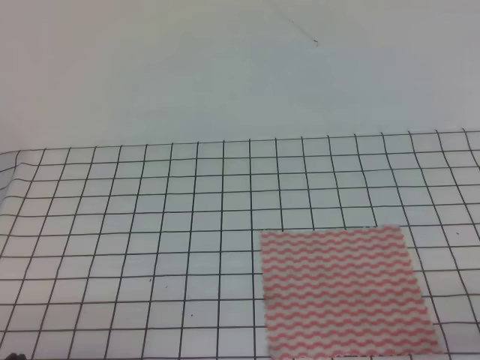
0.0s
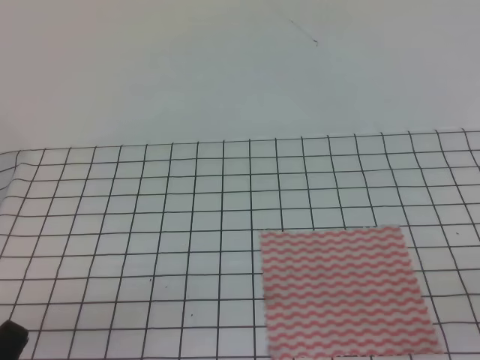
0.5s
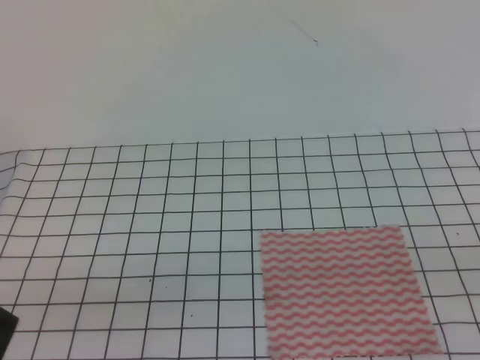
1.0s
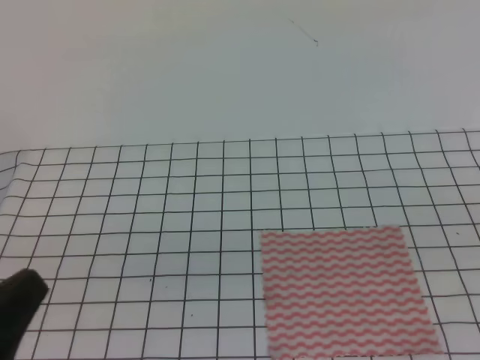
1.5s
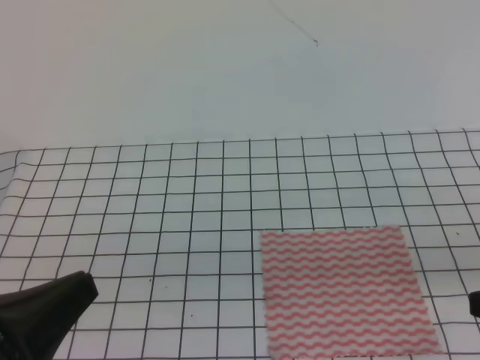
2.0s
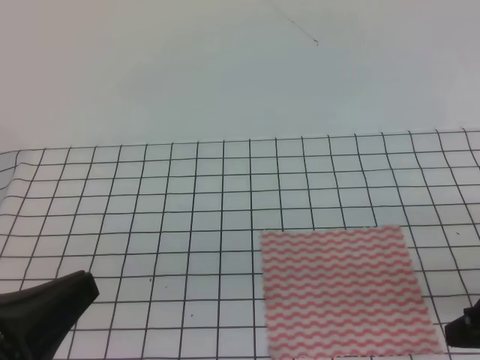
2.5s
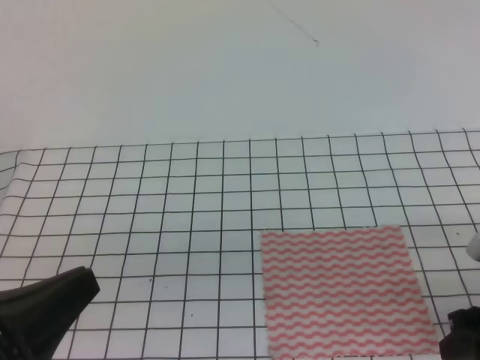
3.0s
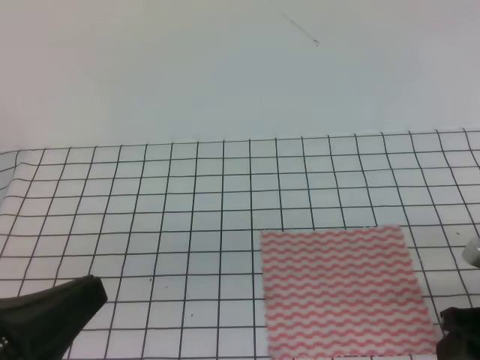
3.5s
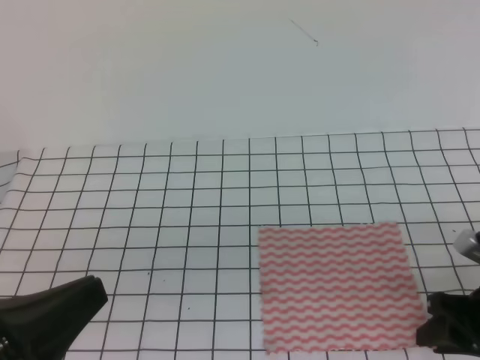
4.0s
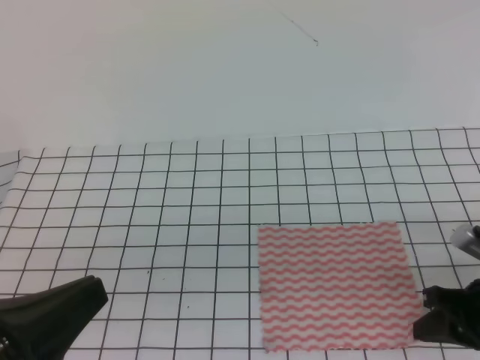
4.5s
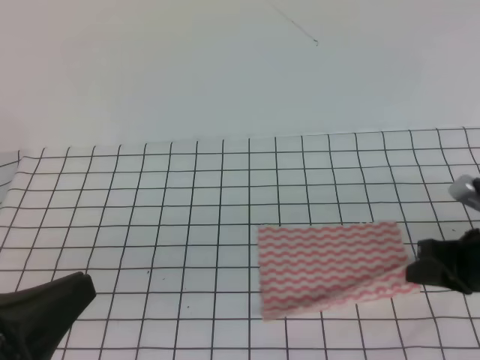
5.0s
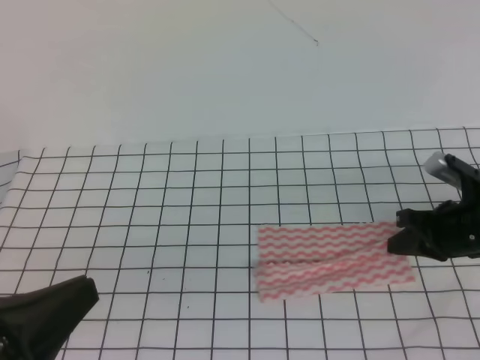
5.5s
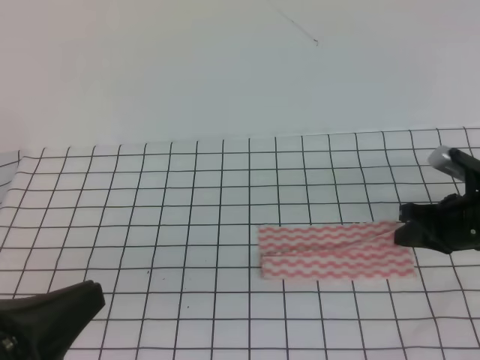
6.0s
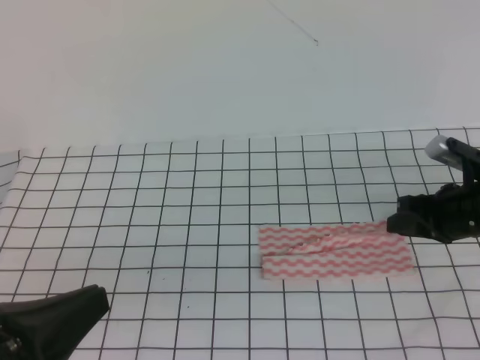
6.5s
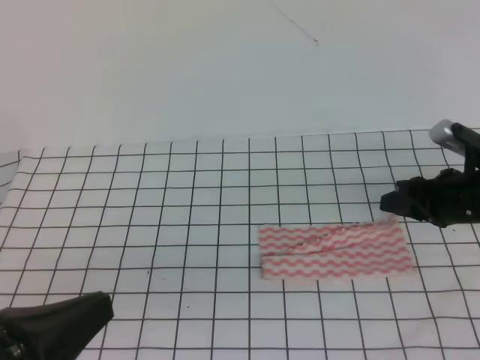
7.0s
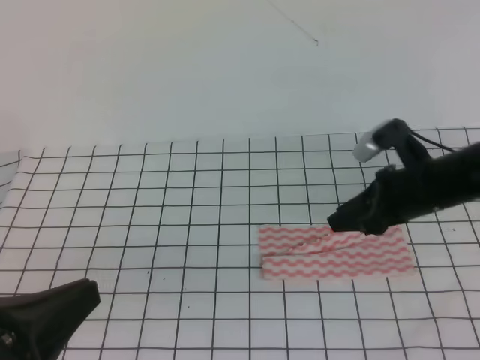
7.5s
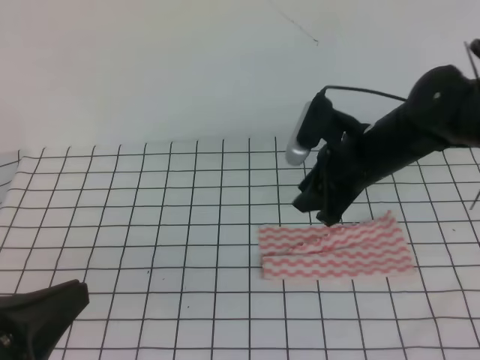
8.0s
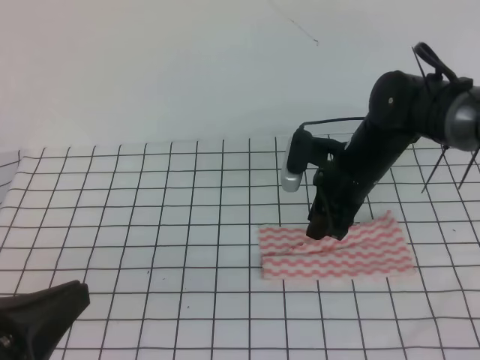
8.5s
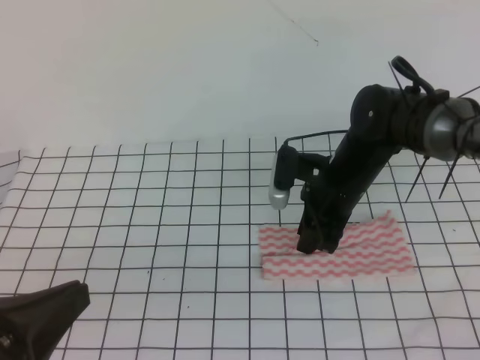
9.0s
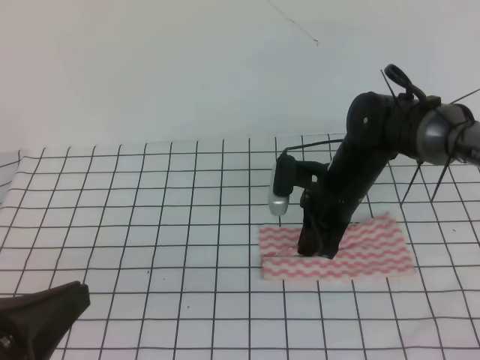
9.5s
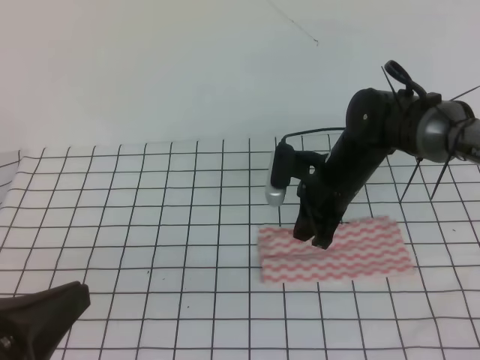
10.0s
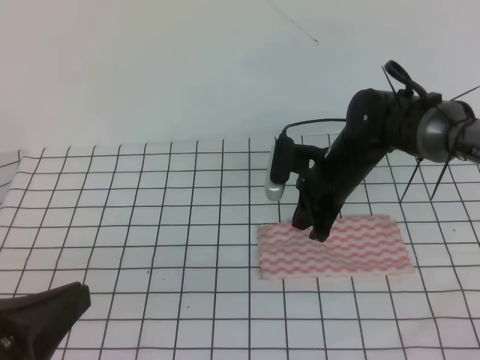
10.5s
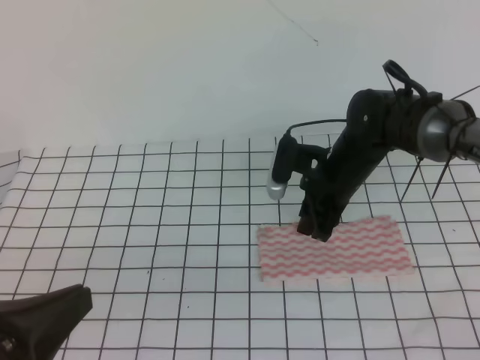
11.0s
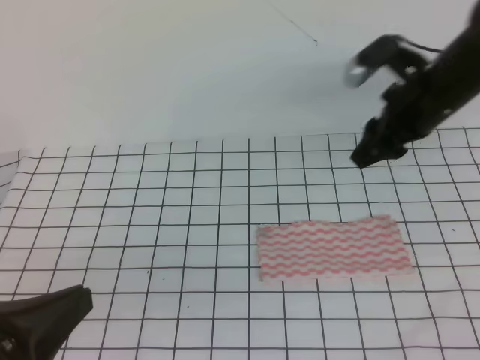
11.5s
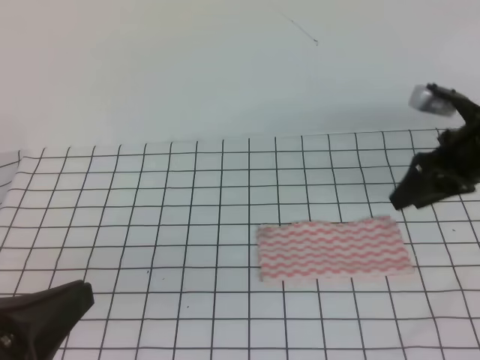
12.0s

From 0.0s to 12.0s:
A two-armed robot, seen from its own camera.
Step, from 0.0s to 6.5s: Fold the towel upwards with the right gripper.
Step, from 7.0s to 10.5s: Fold the towel from right to left with the right gripper.
From 0.0s to 2.0s: The right gripper is displaced forward and upward by roughly 10 cm, while the left gripper heads upward, covering about 10 cm.
From 2.0s to 4.0s: The right gripper is displaced downward and forward by about 15 cm, and opens up.
From 4.0s to 6.0s: The right gripper shifts roughly 10 cm forward, and closes up.
From 6.0s to 8.0s: The right gripper goes some 15 cm to the left and upward, and opens up.
From 8.0s to 10.0s: The right gripper is displaced downward by about 5 cm, and closes up.
From 10.0s to 12.0s: The right gripper shifts roughly 15 cm to the right and upward, and opens.

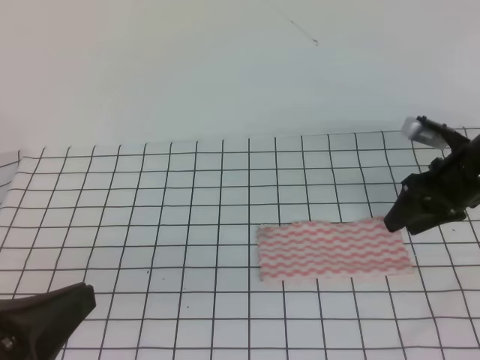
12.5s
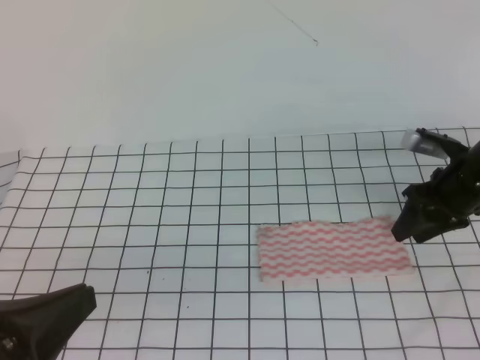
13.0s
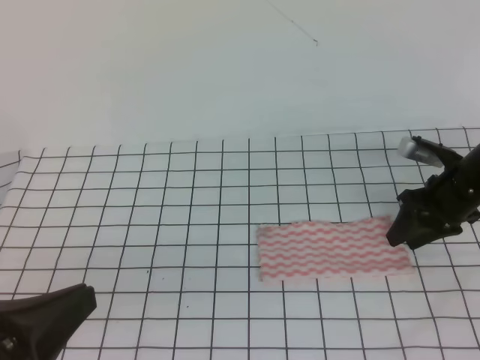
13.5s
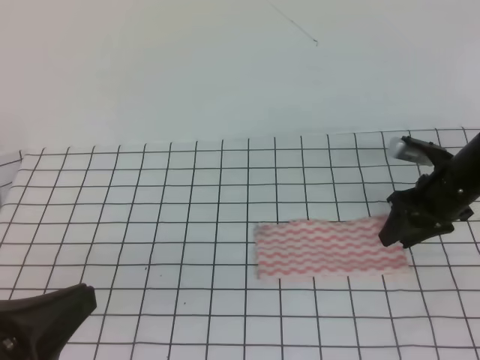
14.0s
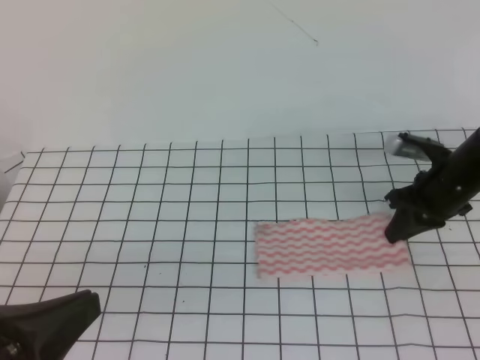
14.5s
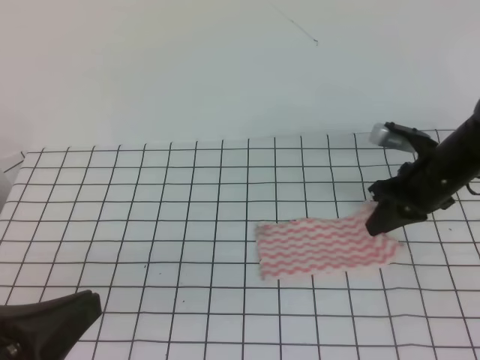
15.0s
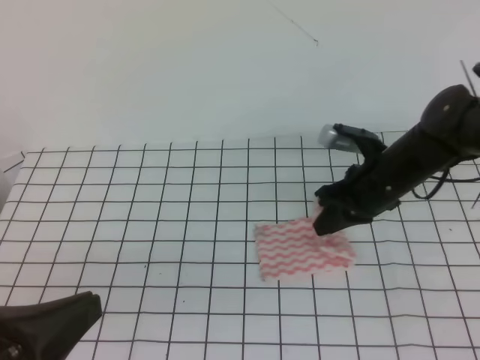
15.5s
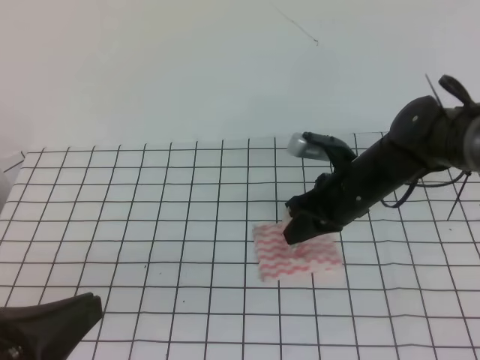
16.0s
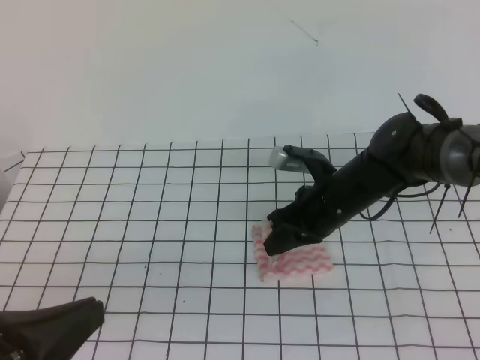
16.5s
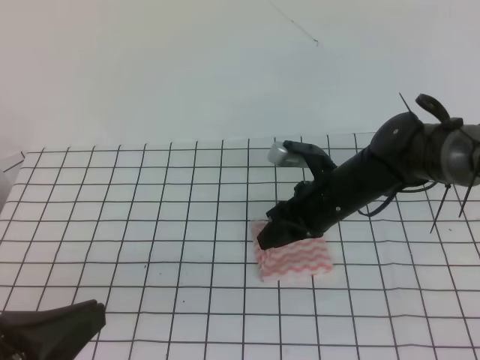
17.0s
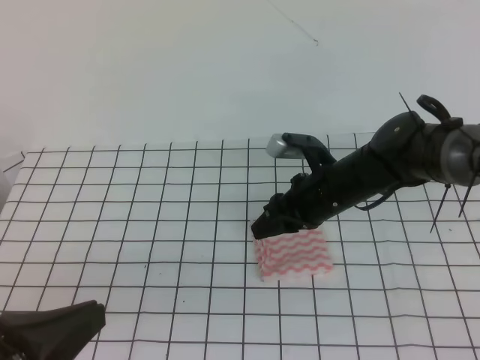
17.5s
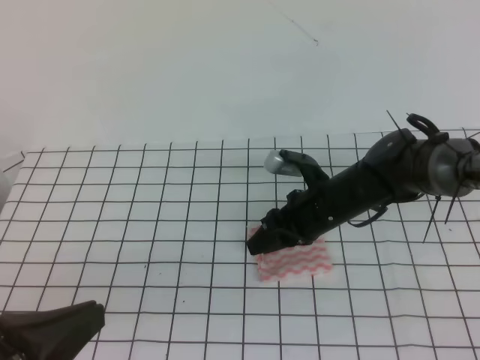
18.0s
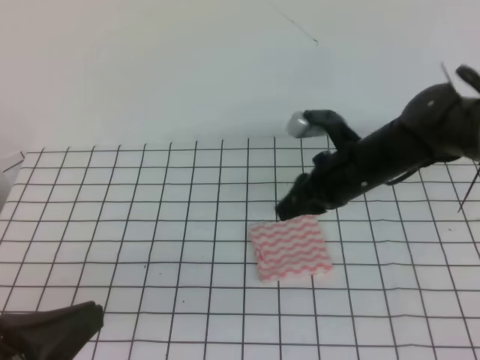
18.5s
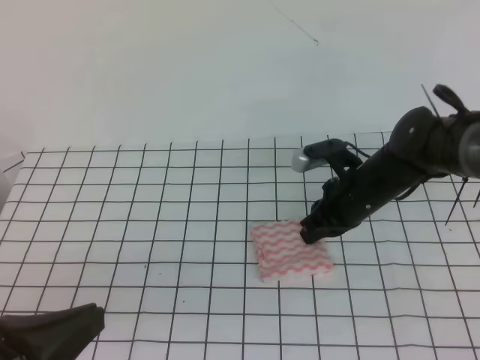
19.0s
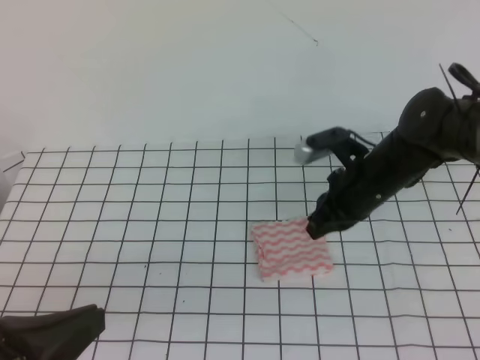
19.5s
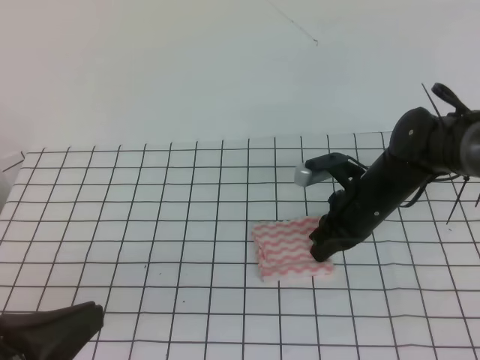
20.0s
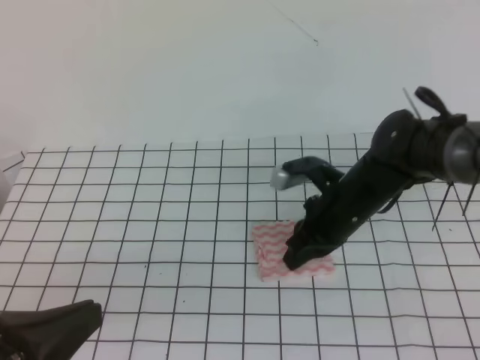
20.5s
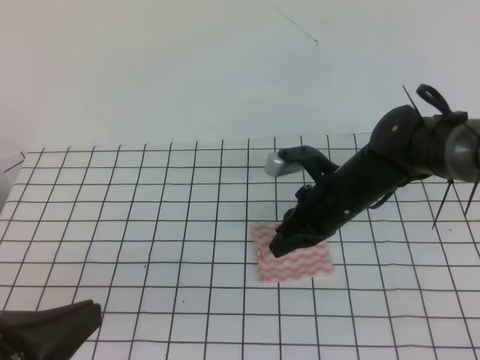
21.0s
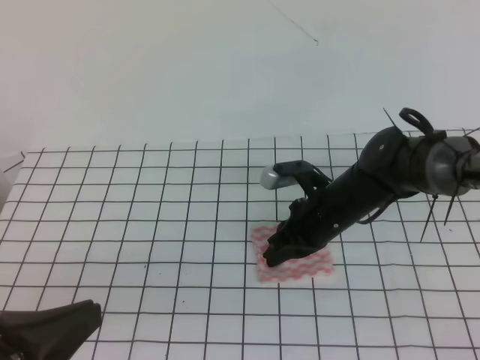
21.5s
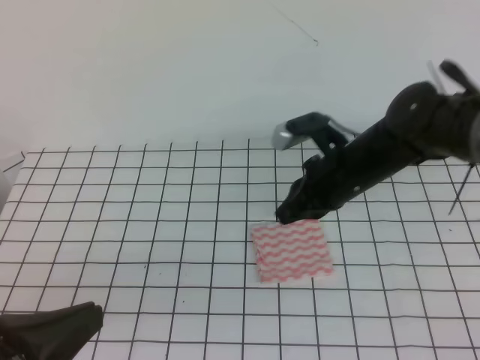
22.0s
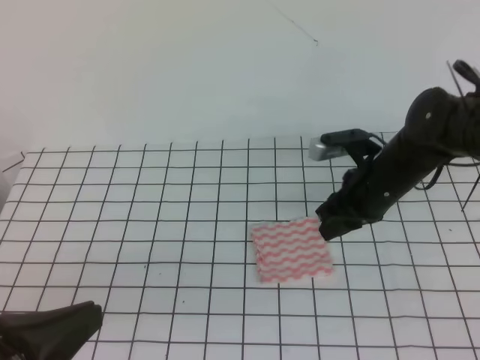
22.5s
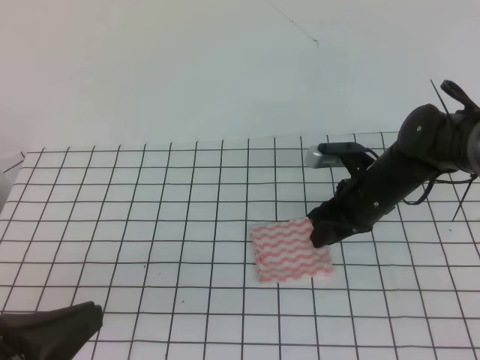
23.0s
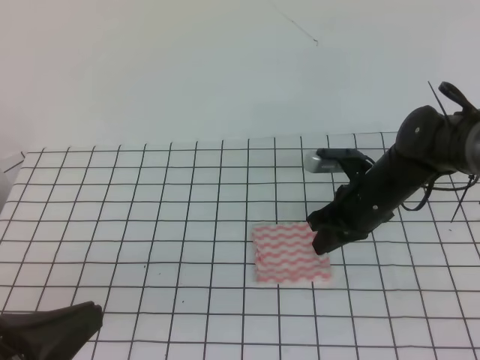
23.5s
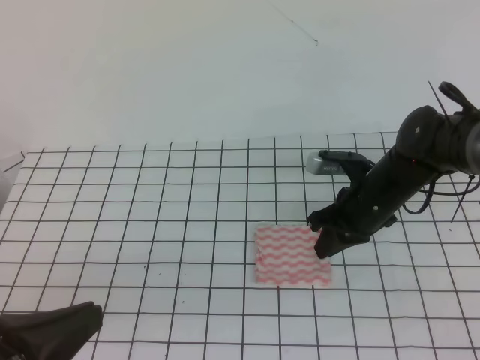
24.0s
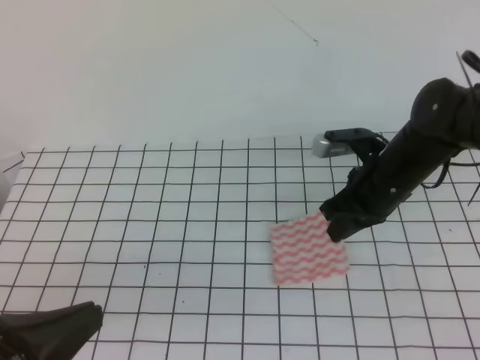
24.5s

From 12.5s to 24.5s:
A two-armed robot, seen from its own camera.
Step, from 12.5s to 16.0s: Tidy up the towels.
From 12.5s to 14.5s: The right gripper closes.
From 14.5s to 16.5s: The right gripper goes about 15 cm to the left.
From 16.5s to 18.5s: The grippers stay close to where they were, moving slightly.
From 18.5s to 20.5s: The right gripper closes up.
From 20.5s to 22.5s: The right gripper opens.
From 22.5s to 24.5s: The grippers stay close to where they were, moving slightly.

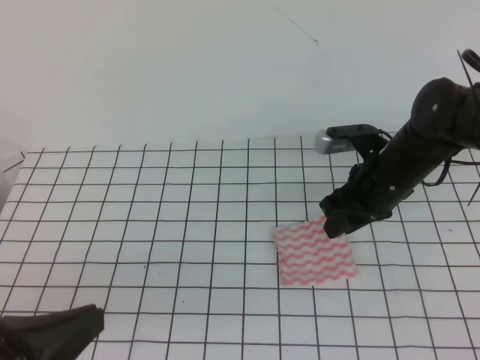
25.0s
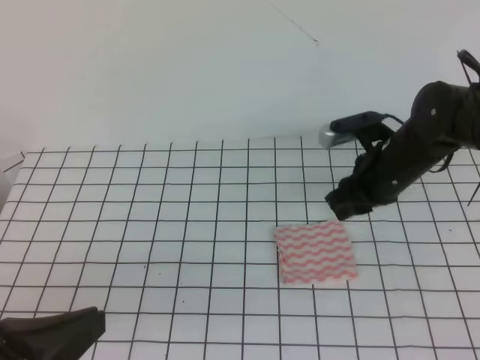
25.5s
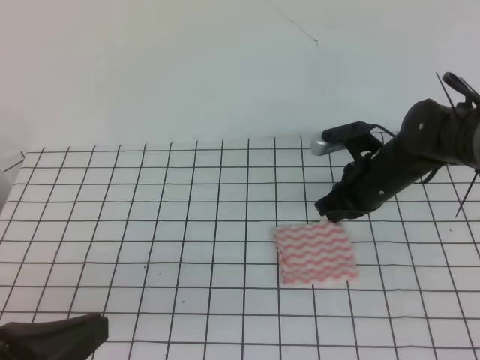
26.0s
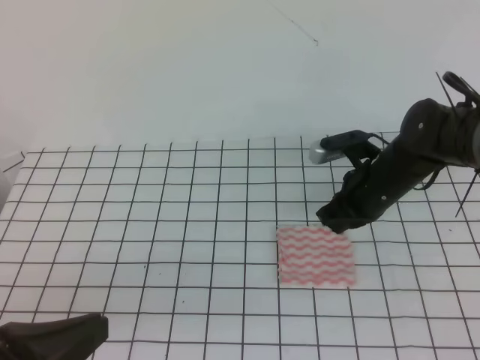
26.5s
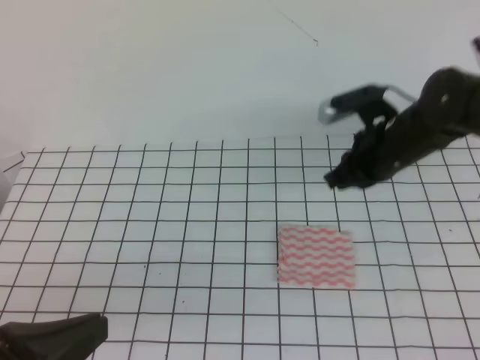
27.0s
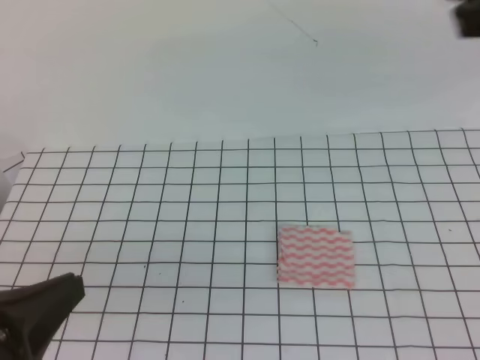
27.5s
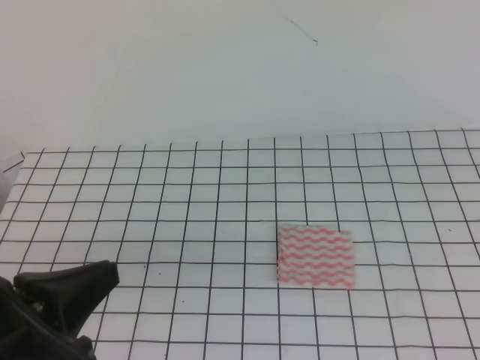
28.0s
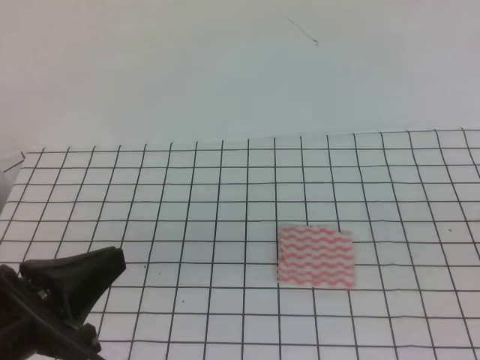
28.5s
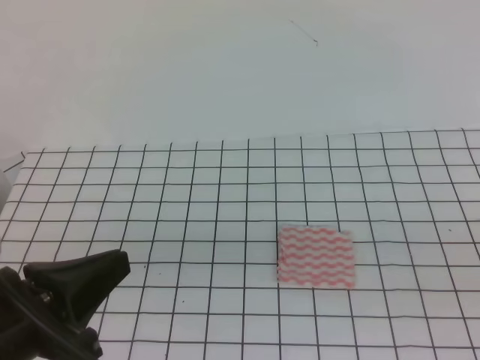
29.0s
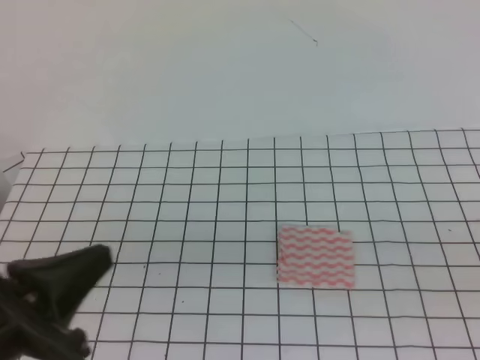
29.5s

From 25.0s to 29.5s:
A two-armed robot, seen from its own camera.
From 25.0s to 27.0s: The right gripper closes.
From 27.0s to 29.5s: The right gripper heads backward, covering some 30 cm.
